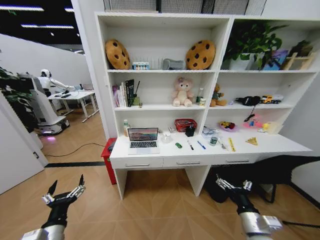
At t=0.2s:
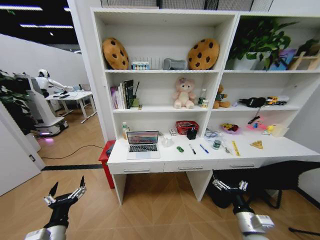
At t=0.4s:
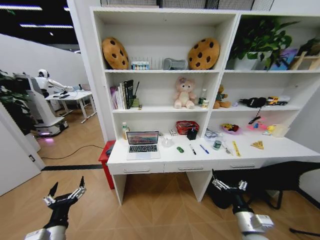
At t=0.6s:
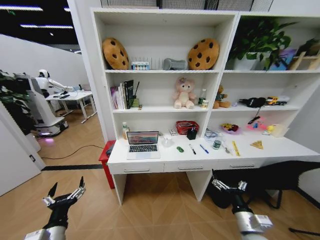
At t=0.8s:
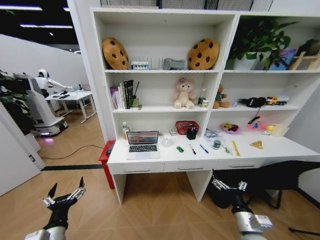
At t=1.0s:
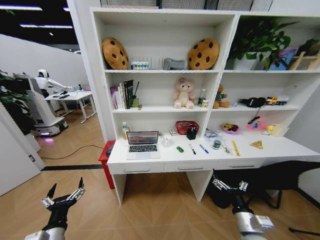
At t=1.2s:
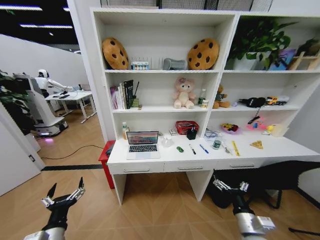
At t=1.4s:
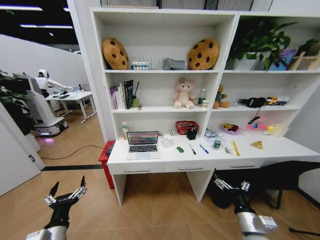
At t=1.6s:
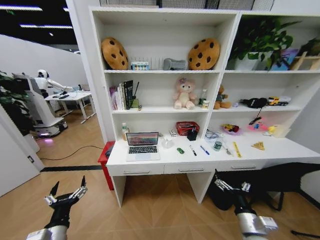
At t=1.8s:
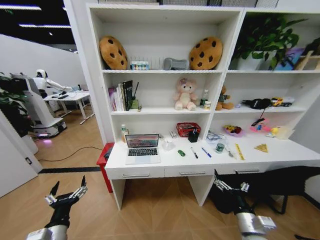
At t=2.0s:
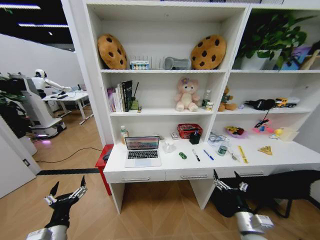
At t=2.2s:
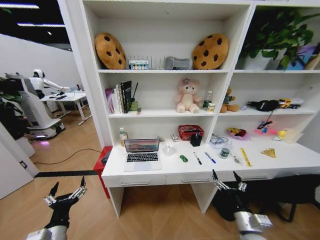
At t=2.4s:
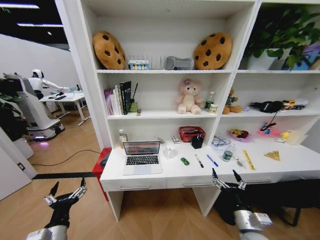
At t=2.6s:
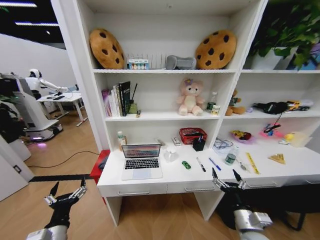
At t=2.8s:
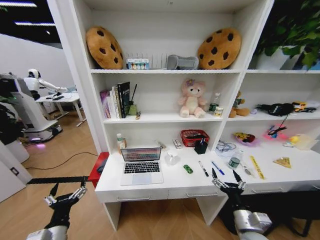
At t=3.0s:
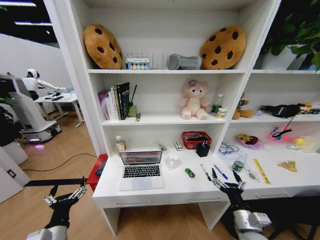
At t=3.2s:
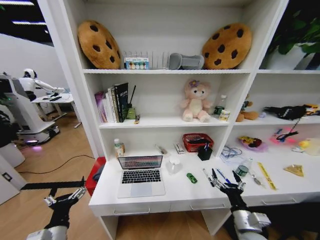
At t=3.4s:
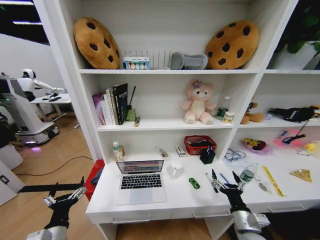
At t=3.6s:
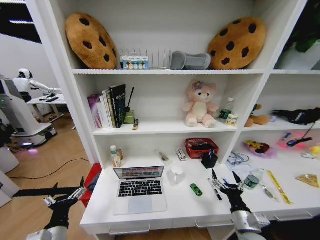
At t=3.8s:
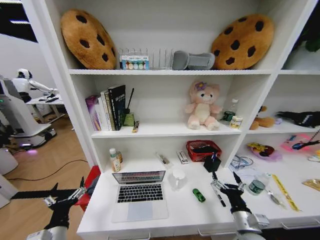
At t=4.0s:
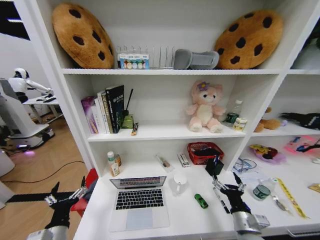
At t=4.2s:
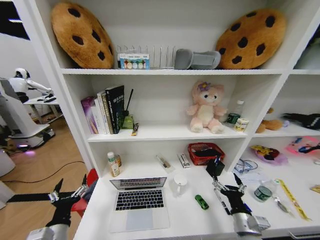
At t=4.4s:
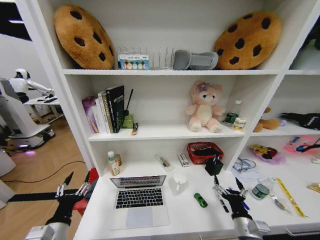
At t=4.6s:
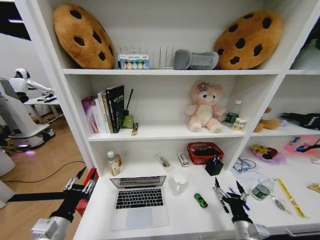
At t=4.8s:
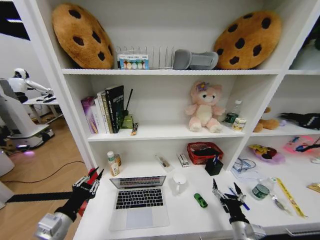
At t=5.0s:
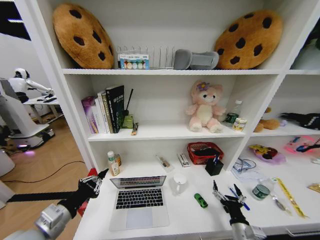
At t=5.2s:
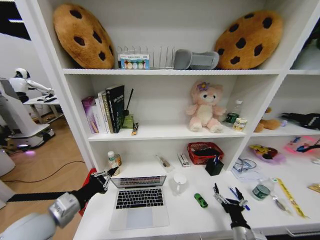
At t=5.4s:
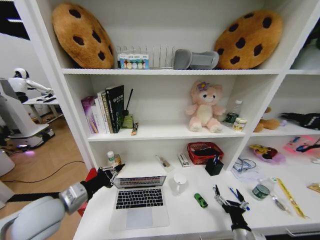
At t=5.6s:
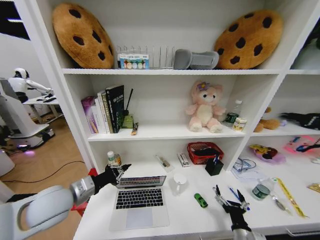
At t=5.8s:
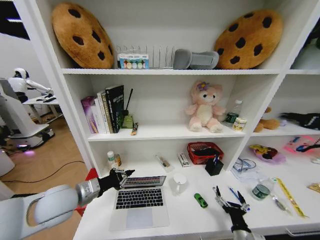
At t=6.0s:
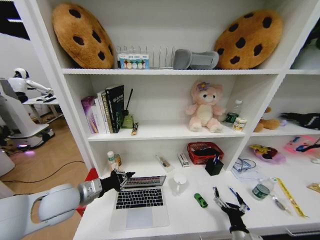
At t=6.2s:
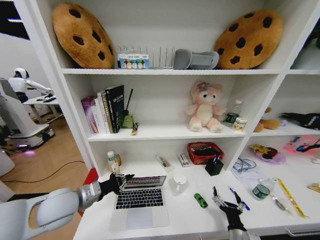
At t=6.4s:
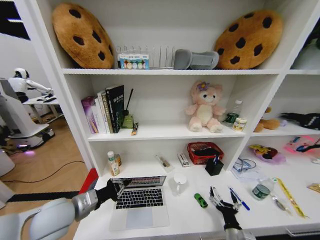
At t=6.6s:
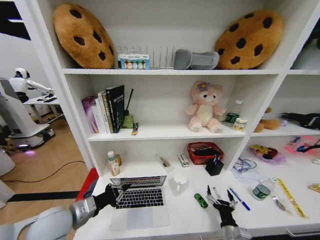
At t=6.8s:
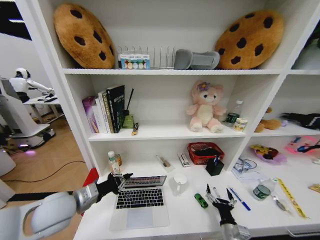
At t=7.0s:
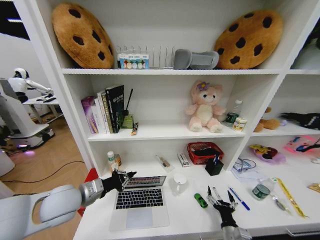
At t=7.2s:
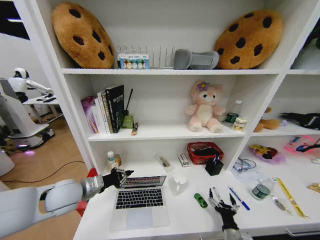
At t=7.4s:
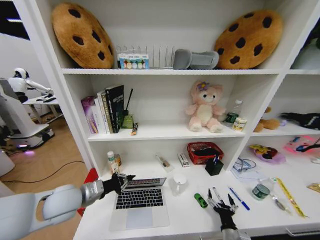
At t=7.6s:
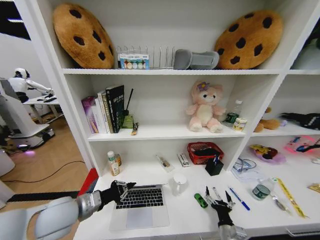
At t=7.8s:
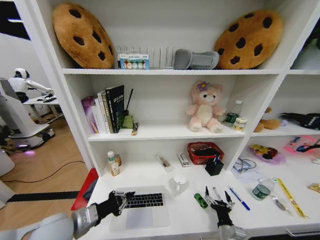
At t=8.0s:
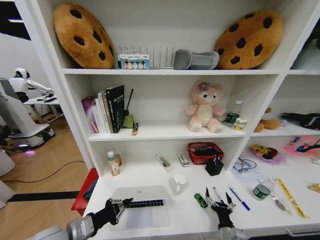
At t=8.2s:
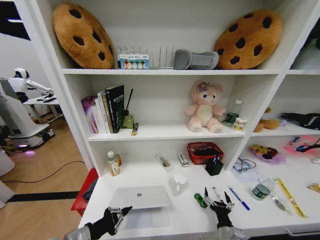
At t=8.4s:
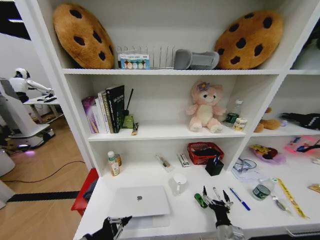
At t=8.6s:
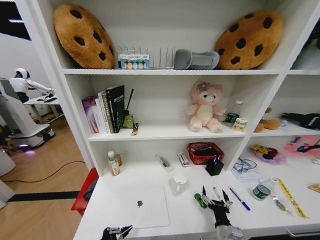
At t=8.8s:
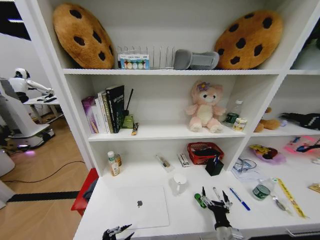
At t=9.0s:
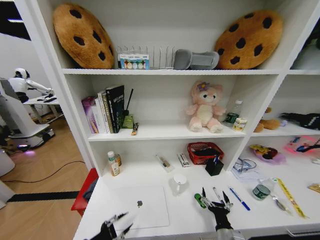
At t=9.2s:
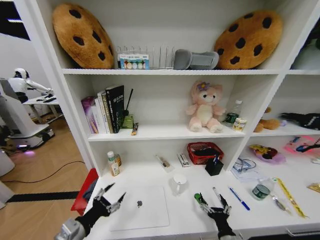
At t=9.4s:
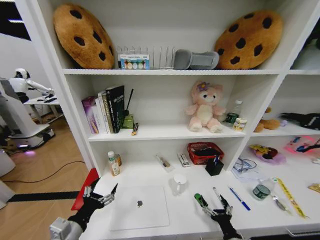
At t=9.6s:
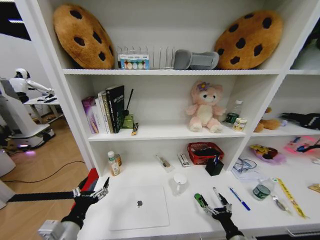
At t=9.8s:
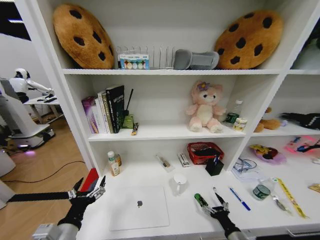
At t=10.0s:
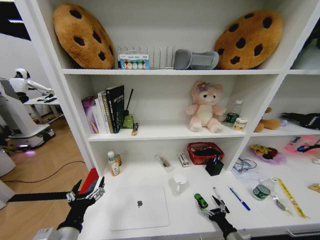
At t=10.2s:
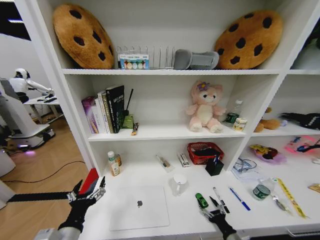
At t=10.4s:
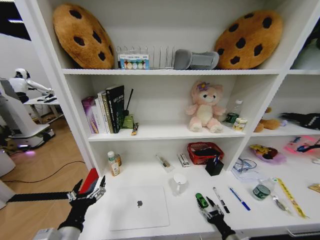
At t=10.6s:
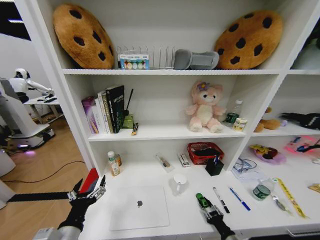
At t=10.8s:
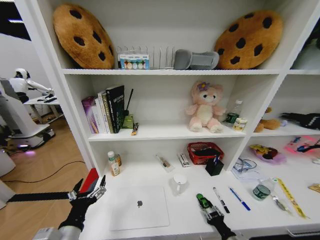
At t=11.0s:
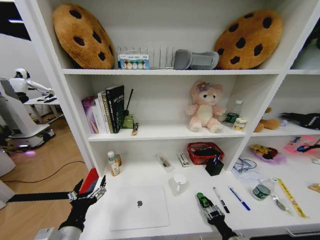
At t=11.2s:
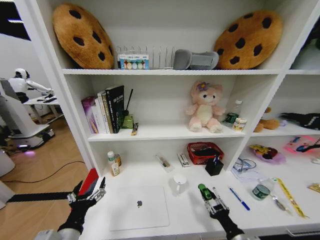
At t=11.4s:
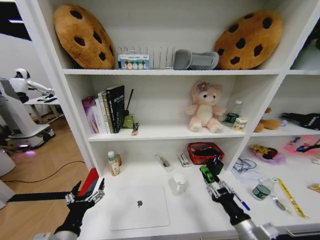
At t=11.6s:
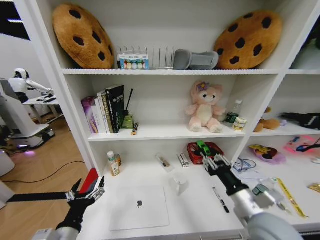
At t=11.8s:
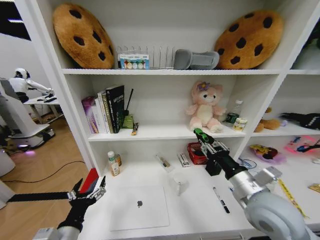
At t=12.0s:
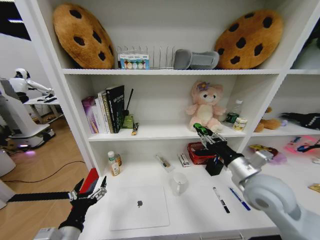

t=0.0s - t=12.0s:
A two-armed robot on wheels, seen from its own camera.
Task of the whole recording: Organize the objects on the table.
t=4.4s - t=6.0s: The right gripper travels downward by roughly 5 cm. The left gripper heads forward and upward, covering about 15 cm, and closes its fingers.
t=6.0s - t=7.6s: The left gripper goes forward and backward, some 5 cm each way, reversing 2 times.
t=7.6s - t=9.0s: The left gripper is displaced backward and downward by about 15 cm, and opens.
t=9.0s - t=10.4s: The left gripper moves roughly 5 cm, and opens. Meanwhile the right gripper travels to the right by some 10 cm, and closes.
t=10.4s - t=12.0s: The right gripper shifts roughly 35 cm upward and forward.

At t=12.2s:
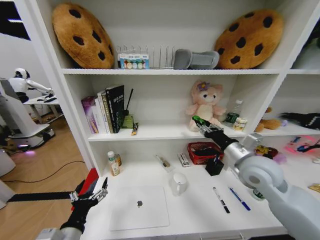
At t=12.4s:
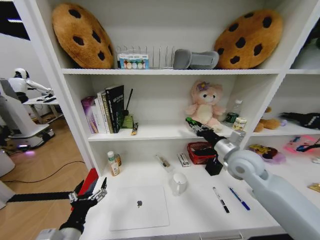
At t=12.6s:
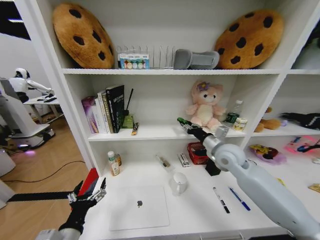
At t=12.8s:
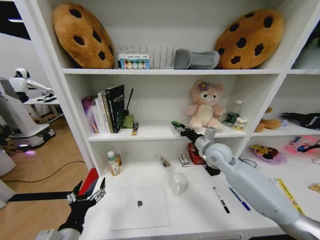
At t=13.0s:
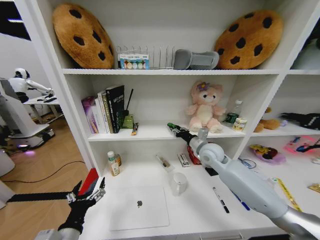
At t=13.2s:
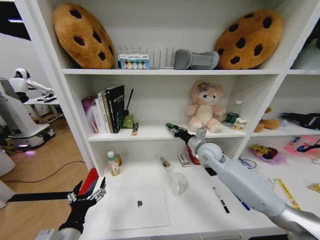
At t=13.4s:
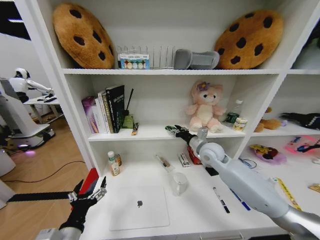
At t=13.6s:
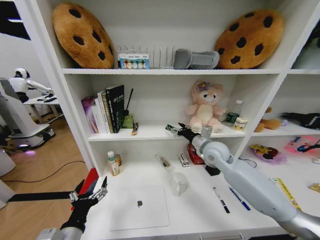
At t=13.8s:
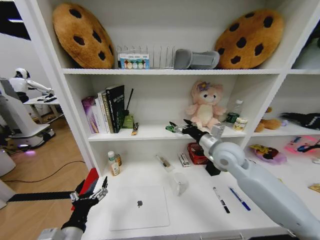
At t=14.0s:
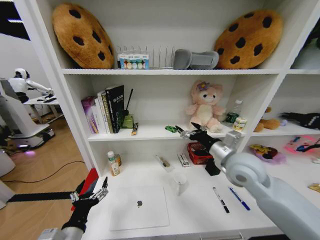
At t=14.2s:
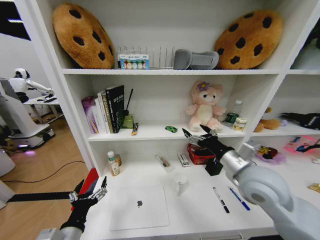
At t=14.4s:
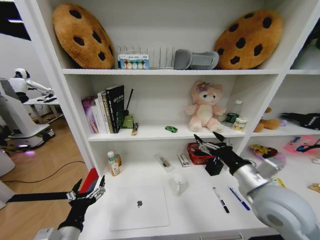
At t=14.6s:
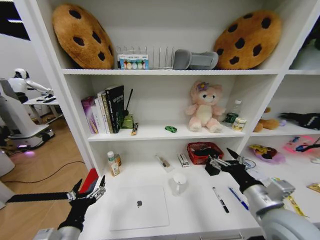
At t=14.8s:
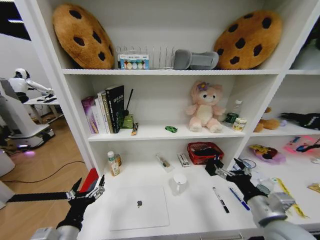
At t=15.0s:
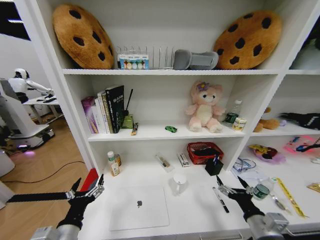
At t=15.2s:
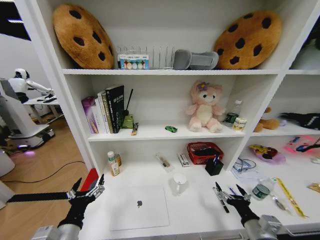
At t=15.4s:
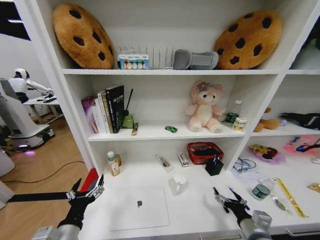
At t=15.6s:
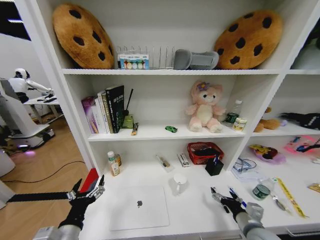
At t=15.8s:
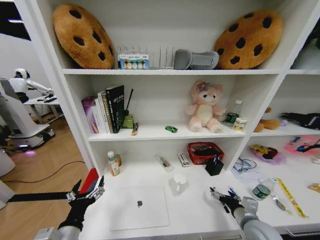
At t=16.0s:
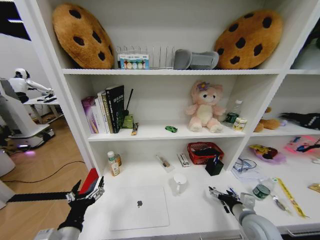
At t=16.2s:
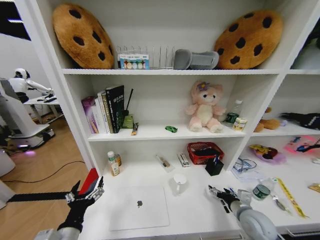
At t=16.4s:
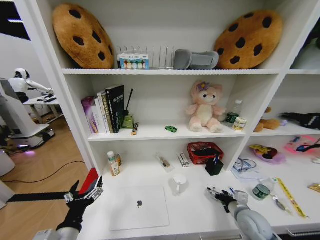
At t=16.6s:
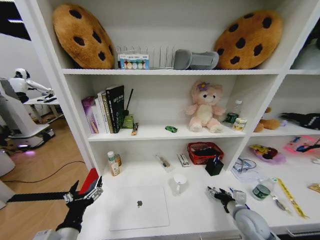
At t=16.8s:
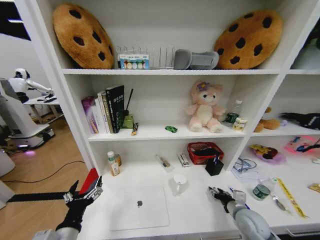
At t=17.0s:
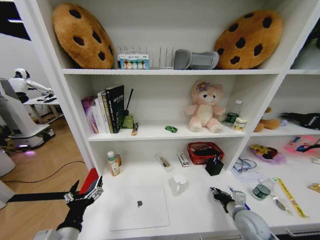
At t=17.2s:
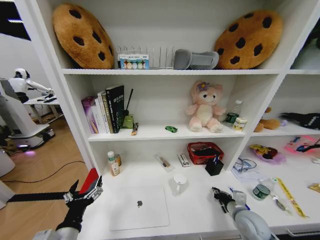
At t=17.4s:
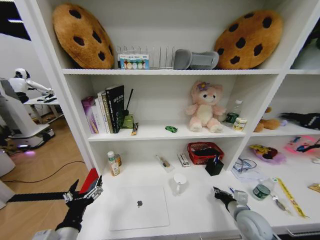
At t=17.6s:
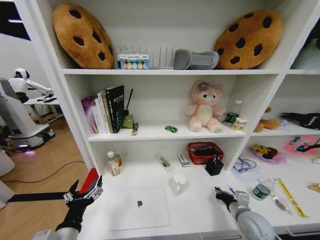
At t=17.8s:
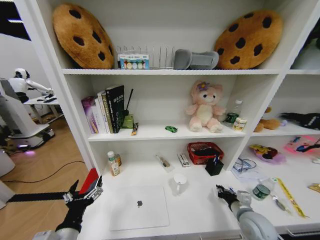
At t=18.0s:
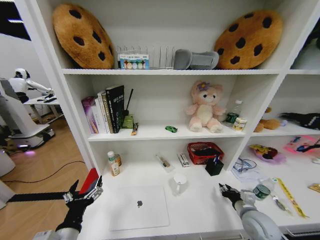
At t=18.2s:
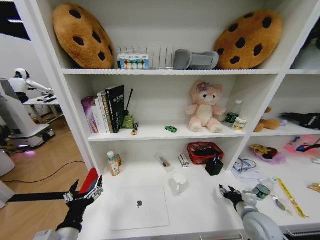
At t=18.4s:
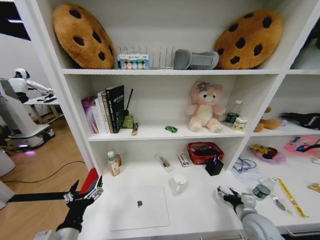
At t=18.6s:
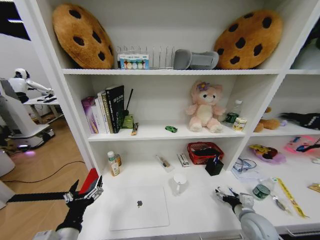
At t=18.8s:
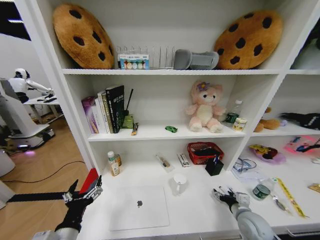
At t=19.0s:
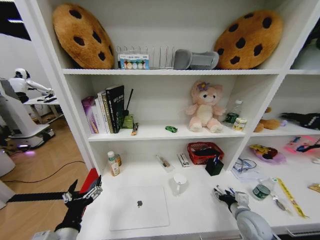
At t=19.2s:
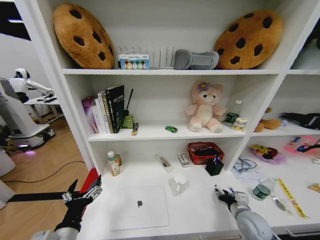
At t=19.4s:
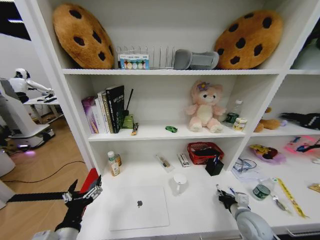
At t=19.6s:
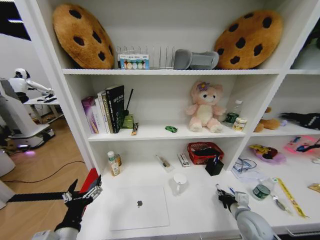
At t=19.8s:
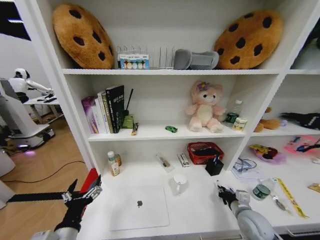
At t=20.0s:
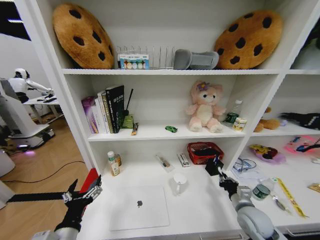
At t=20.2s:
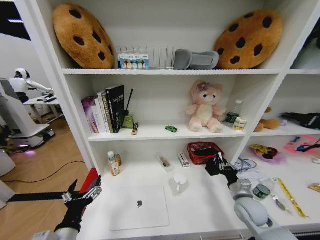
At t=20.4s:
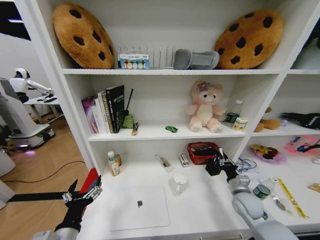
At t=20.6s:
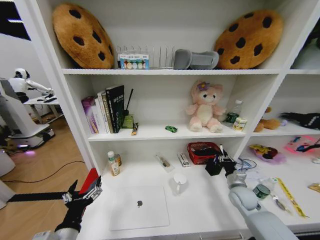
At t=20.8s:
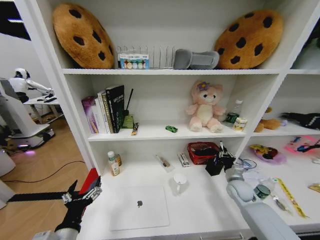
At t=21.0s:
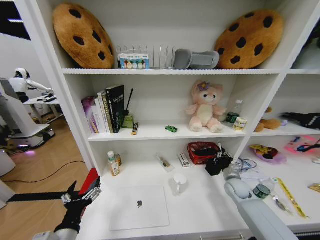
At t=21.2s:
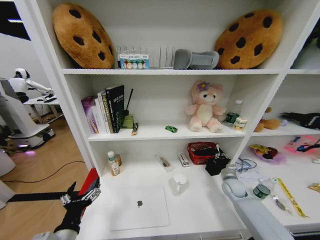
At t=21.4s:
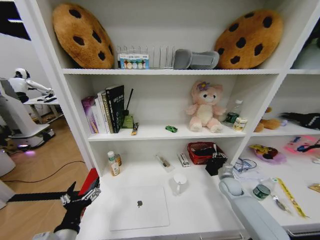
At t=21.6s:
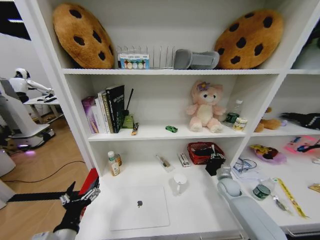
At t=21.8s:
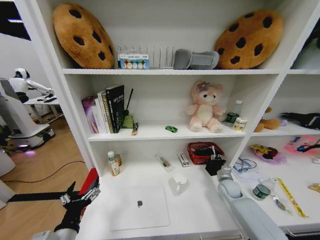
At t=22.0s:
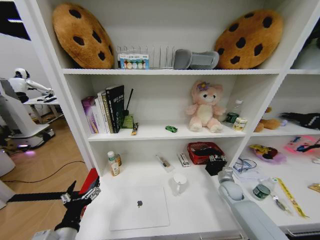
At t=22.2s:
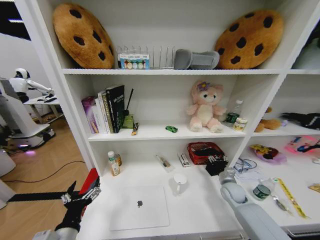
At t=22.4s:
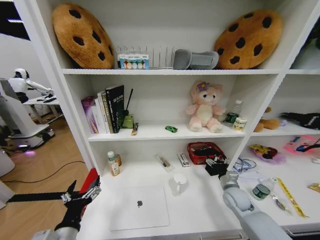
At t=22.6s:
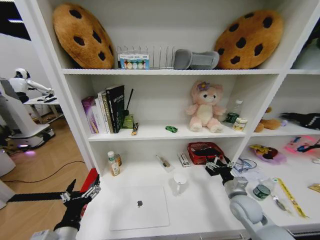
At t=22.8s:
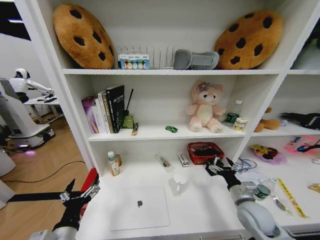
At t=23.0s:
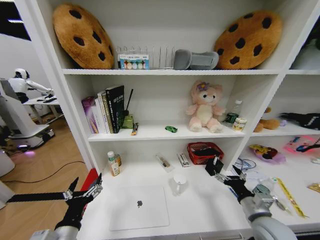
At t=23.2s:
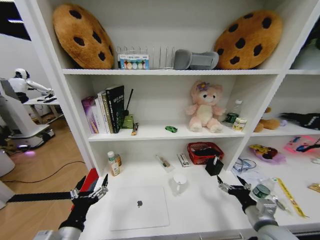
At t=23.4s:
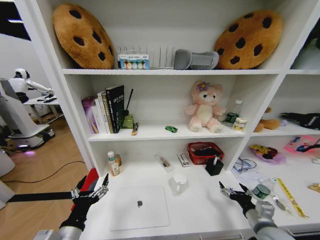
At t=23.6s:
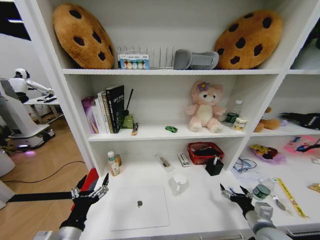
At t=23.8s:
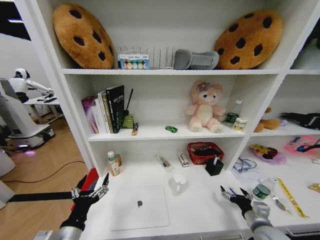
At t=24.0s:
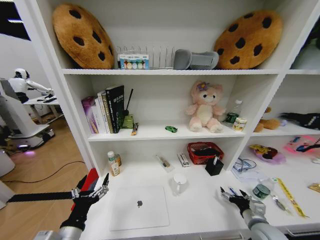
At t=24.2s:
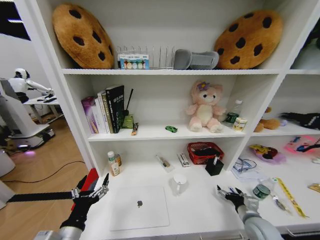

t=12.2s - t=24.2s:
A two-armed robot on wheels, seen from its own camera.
Task of the whole recording: Organize the objects on the table.
t=12.2s - t=13.8s: The right gripper shifts roughly 10 cm forward and to the left, and opens its fingers.
t=13.8s - t=15.2s: The right gripper travels backward and downward by about 30 cm.
t=15.2s - t=16.6s: The right gripper is displaced forward by some 10 cm.
t=16.6s - t=18.2s: The right gripper closes, then reopens.
t=18.2s - t=19.8s: The right gripper closes its fingers.
t=19.8s - t=21.2s: The right gripper moves forward, approximately 15 cm.
t=21.2s - t=22.6s: The right gripper travels backward, upward and to the left by roughly 15 cm, and opens its fingers.
t=22.6s - t=24.2s: The right gripper heads backward, covering roughly 5 cm.
